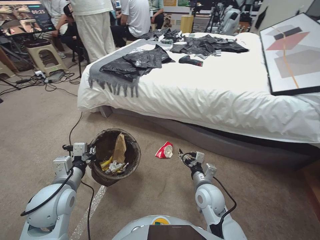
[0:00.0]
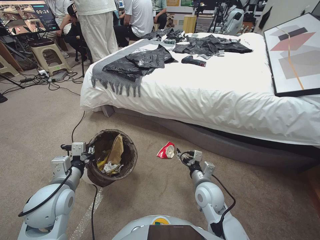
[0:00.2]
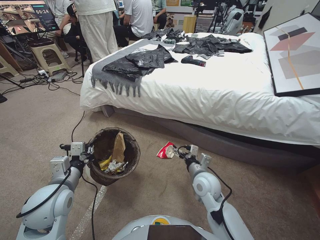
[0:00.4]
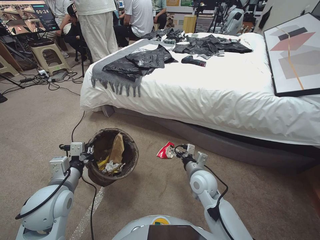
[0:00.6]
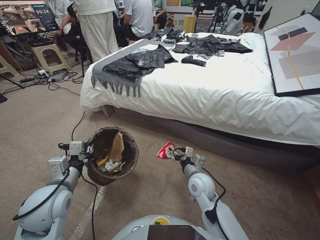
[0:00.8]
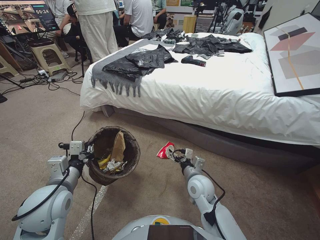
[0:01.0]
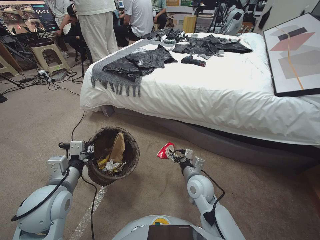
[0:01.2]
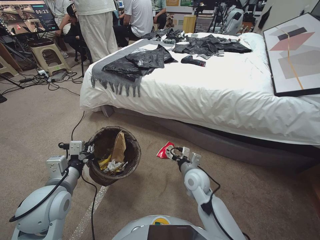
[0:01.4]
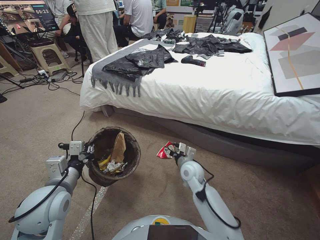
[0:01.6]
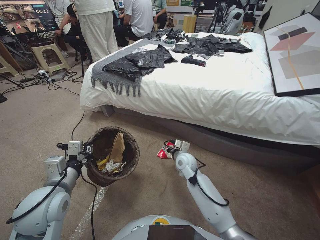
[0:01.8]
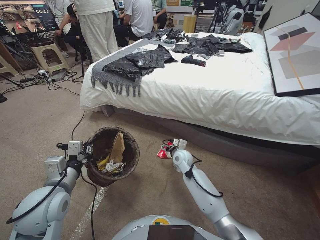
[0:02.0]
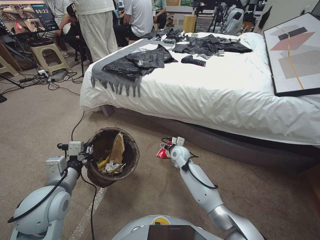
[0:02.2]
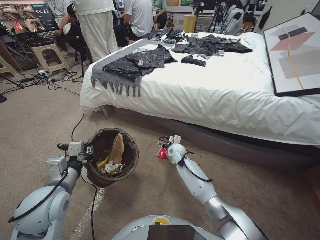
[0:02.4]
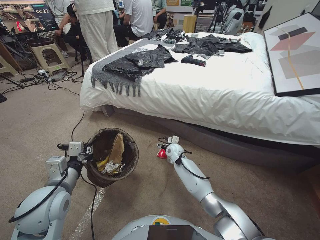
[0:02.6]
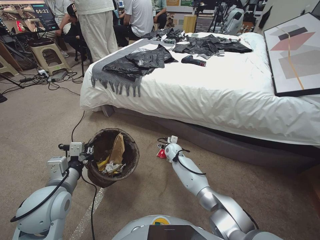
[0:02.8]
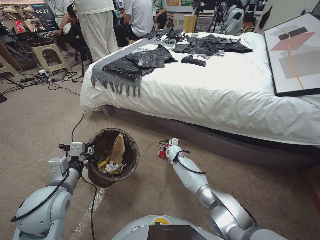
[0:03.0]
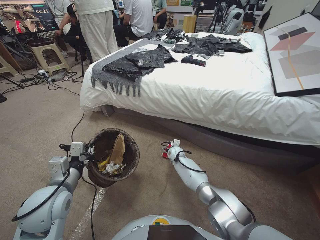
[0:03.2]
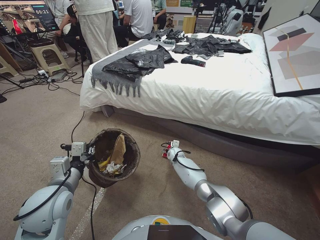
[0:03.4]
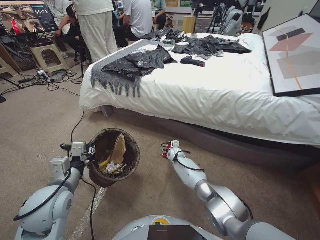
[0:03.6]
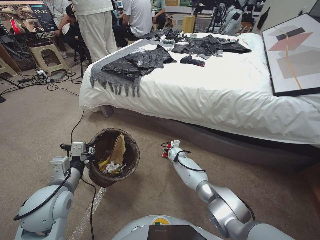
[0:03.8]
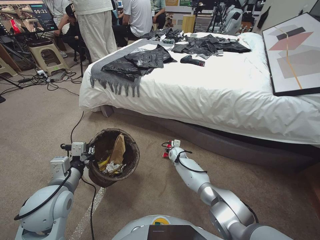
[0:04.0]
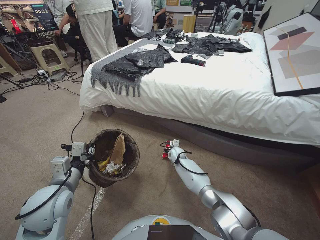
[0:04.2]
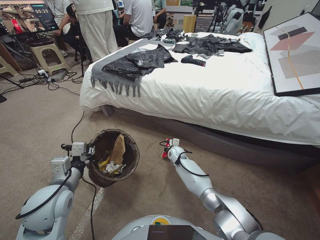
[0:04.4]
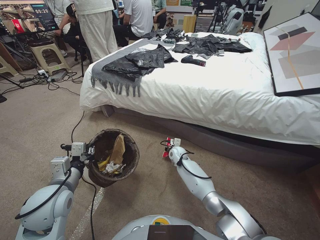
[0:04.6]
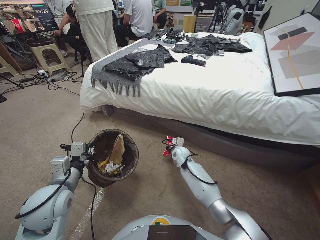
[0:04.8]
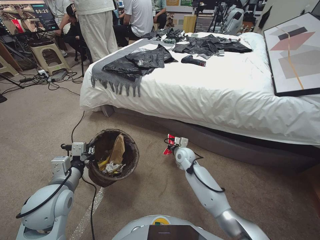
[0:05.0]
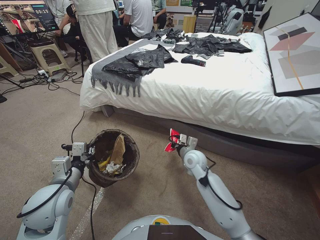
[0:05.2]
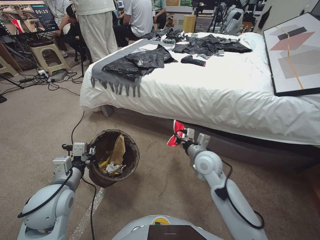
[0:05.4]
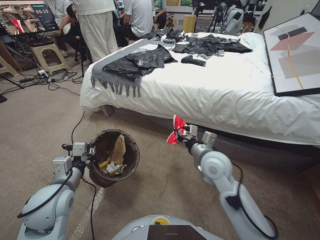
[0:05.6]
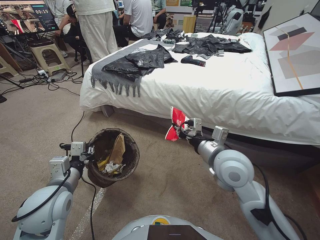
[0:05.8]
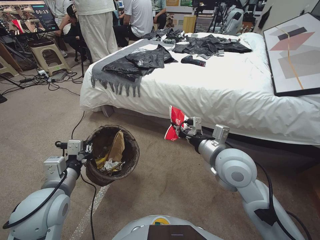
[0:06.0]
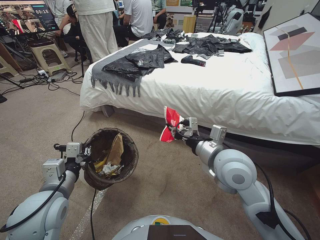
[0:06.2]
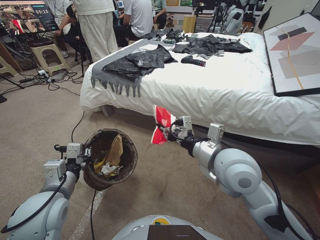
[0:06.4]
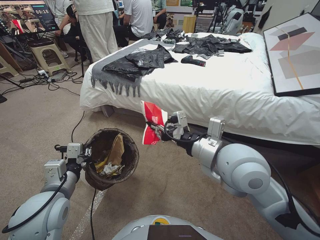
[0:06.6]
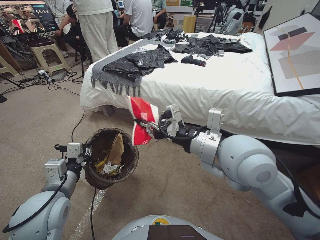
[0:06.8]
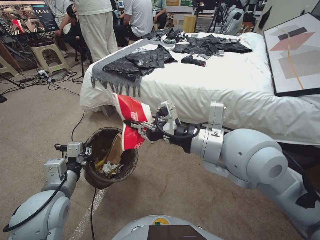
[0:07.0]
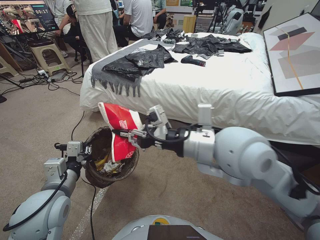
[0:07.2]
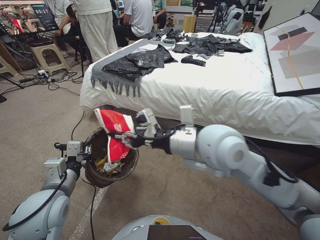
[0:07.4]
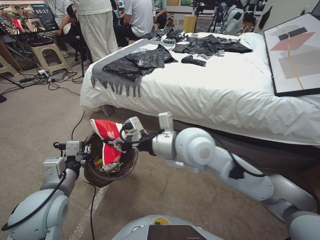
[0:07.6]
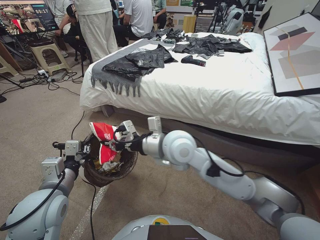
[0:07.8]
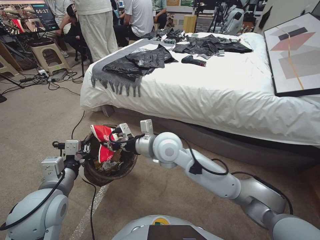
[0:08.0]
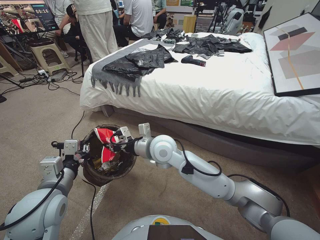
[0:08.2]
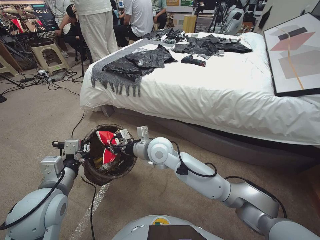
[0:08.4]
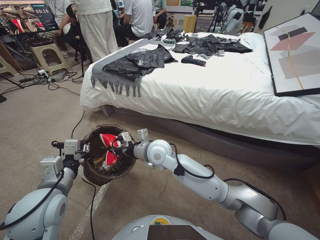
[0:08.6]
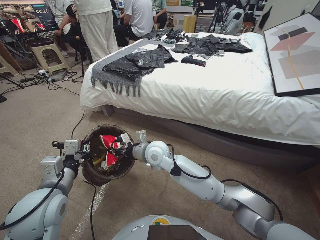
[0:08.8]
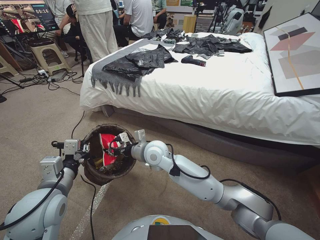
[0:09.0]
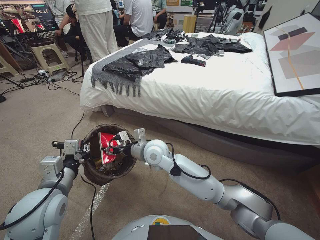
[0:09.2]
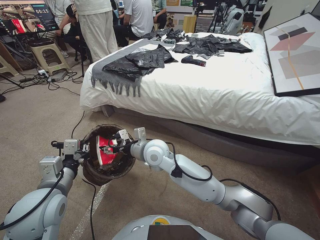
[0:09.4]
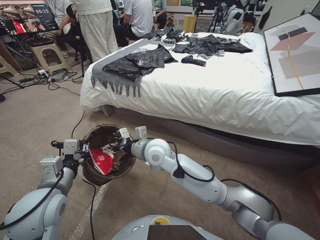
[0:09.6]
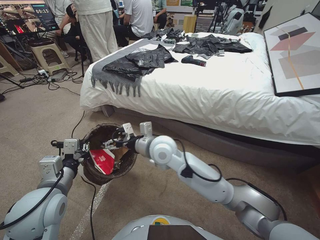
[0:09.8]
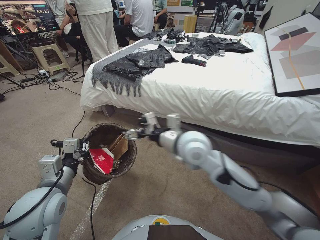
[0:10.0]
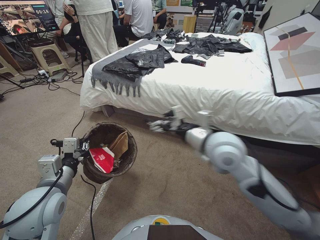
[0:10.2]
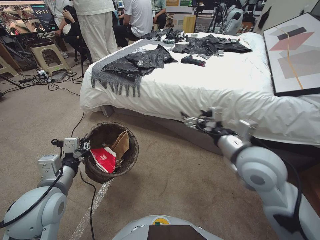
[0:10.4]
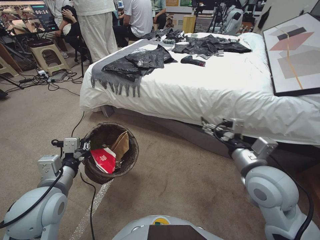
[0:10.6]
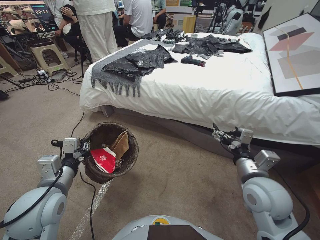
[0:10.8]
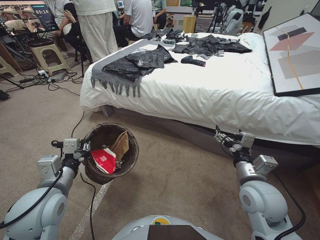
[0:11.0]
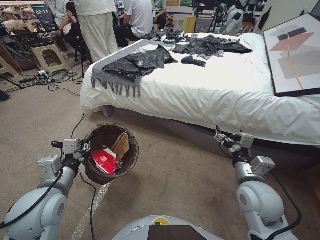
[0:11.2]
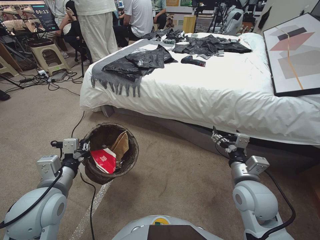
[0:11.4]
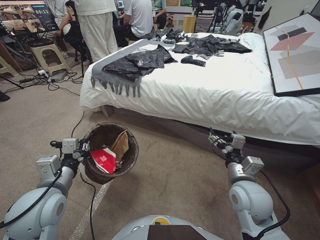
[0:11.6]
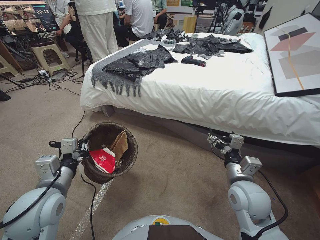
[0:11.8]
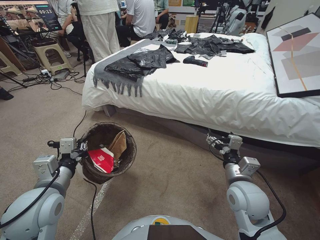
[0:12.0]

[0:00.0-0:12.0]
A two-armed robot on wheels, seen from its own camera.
Task of the whole recording: Pick up the trash bin, then pick up the garbage from the floor and place it into the trash bin.
0:00.0 to 0:01.6: The right gripper goes some 10 cm forward.
0:01.6 to 0:03.0: The right gripper shifts about 20 cm forward and downward.
0:03.0 to 0:04.4: The right gripper closes its fingers.
0:04.4 to 0:06.0: The right gripper goes roughly 40 cm upward and backward, and closes up.
0:06.0 to 0:07.6: The right gripper moves to the left and upward, about 15 cm.
0:07.6 to 0:09.0: The right gripper moves downward, to the left and forward, roughly 20 cm.
0:09.0 to 0:10.4: The right gripper shifts about 30 cm to the right, upward and backward, and opens.
0:10.4 to 0:12.0: The right gripper heads downward and backward, covering about 15 cm.

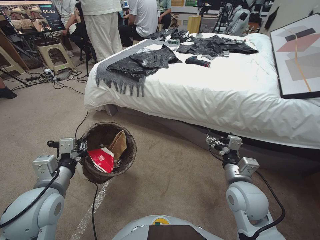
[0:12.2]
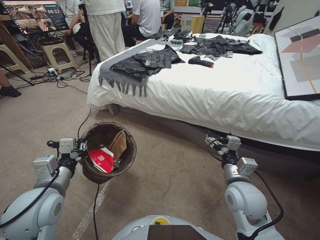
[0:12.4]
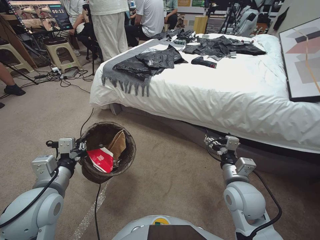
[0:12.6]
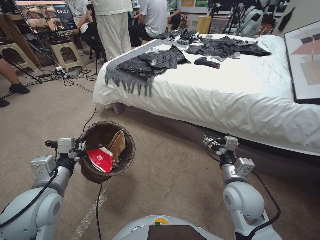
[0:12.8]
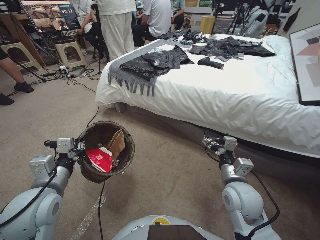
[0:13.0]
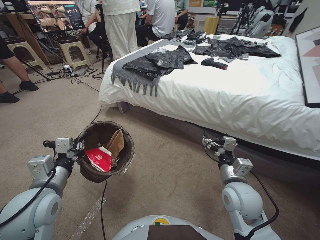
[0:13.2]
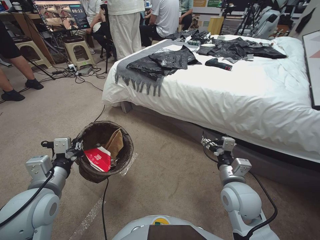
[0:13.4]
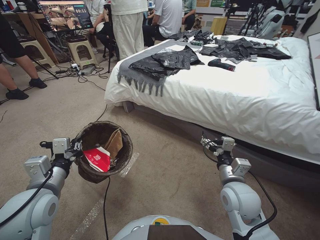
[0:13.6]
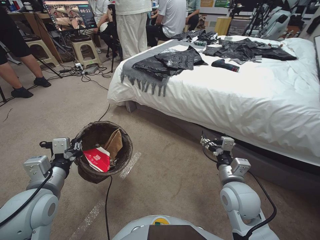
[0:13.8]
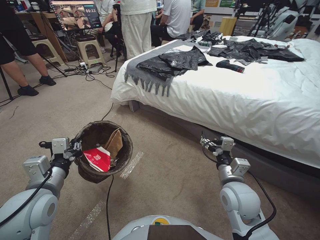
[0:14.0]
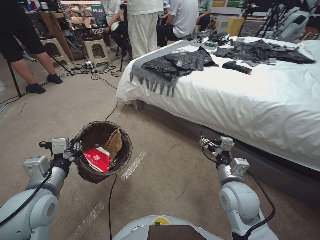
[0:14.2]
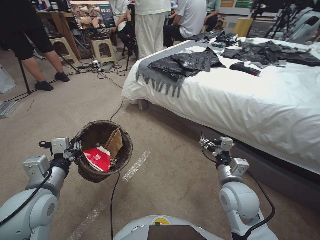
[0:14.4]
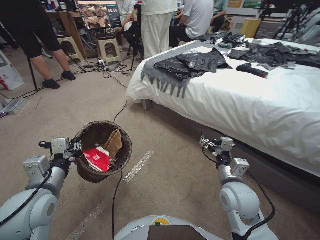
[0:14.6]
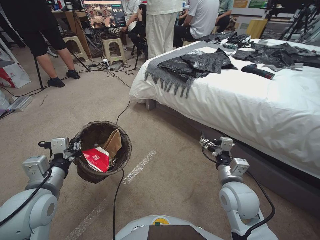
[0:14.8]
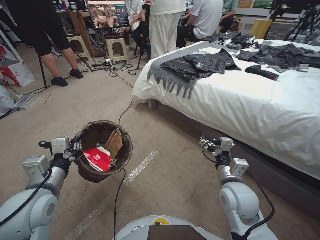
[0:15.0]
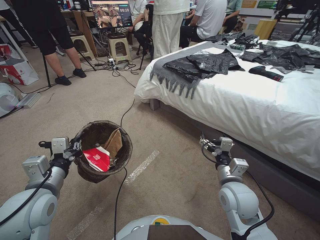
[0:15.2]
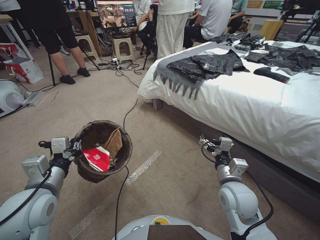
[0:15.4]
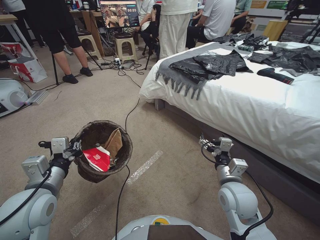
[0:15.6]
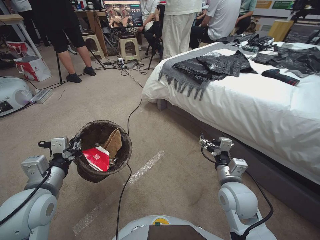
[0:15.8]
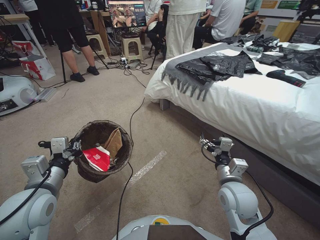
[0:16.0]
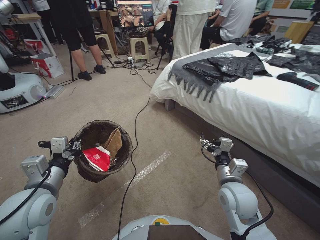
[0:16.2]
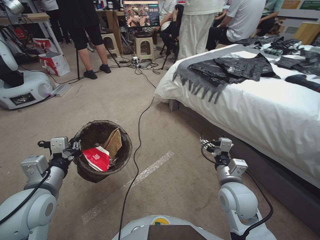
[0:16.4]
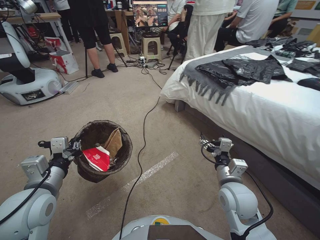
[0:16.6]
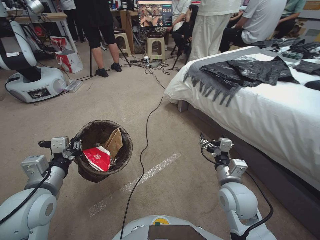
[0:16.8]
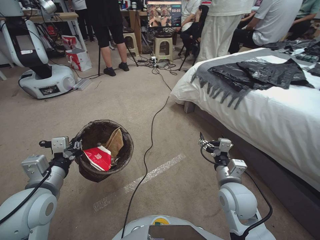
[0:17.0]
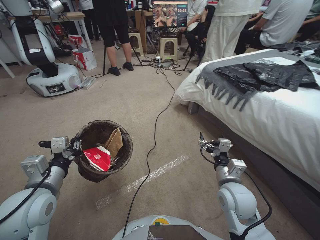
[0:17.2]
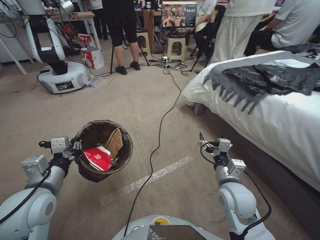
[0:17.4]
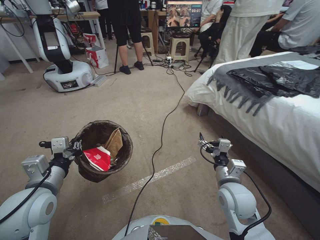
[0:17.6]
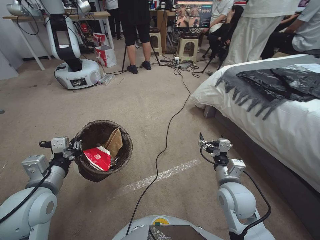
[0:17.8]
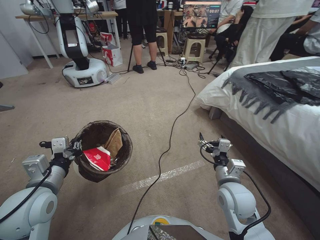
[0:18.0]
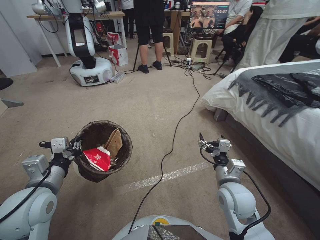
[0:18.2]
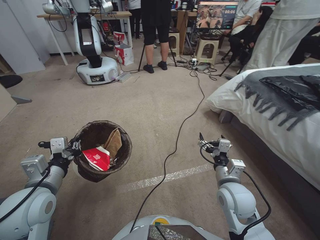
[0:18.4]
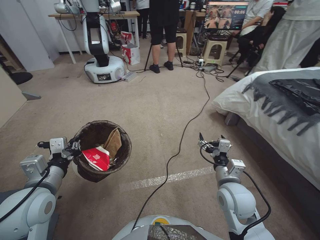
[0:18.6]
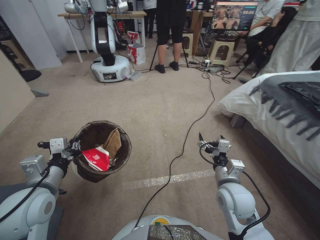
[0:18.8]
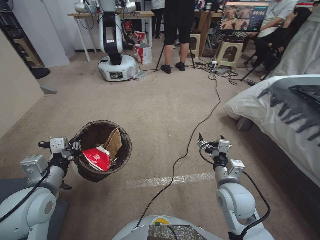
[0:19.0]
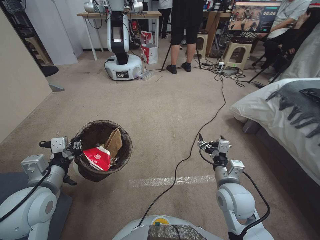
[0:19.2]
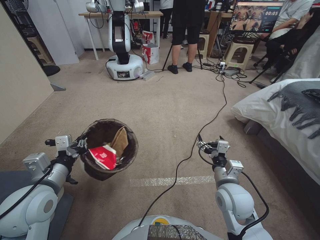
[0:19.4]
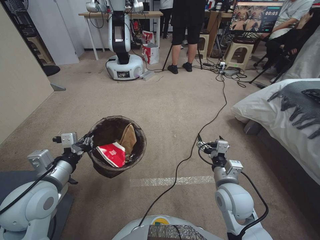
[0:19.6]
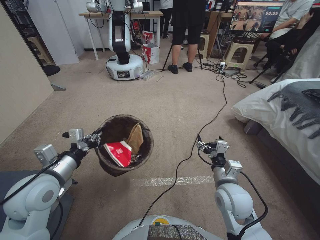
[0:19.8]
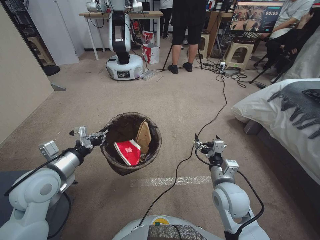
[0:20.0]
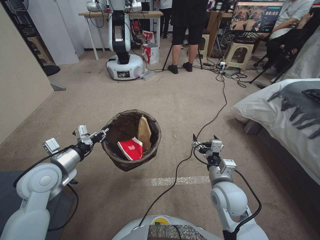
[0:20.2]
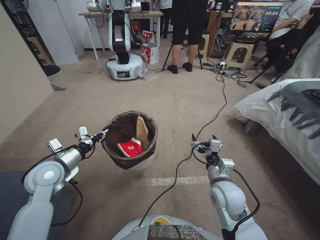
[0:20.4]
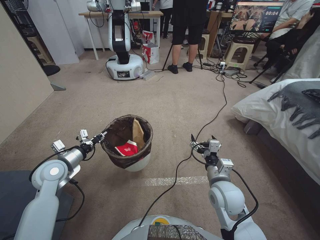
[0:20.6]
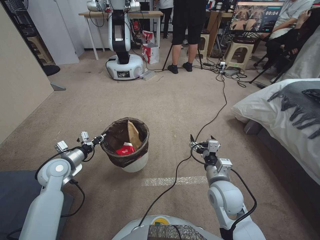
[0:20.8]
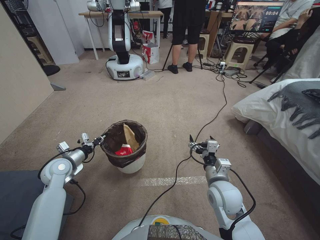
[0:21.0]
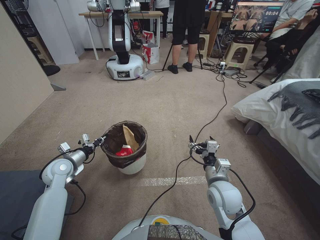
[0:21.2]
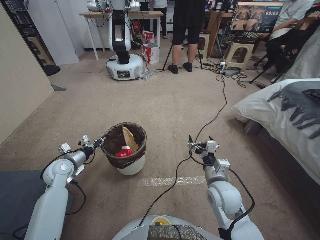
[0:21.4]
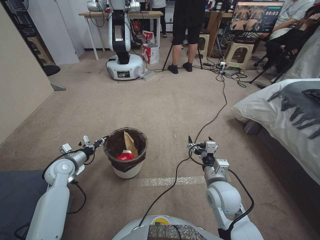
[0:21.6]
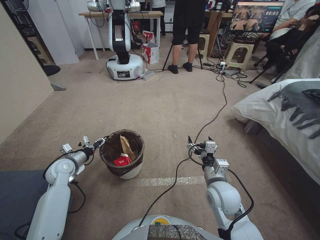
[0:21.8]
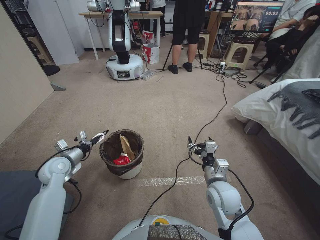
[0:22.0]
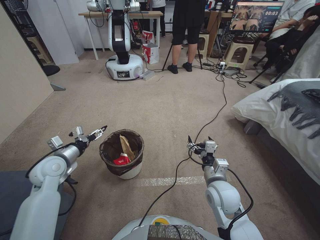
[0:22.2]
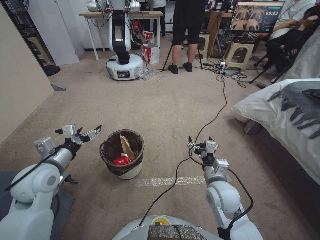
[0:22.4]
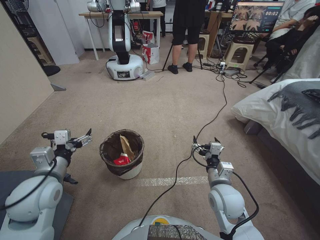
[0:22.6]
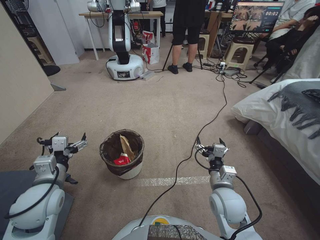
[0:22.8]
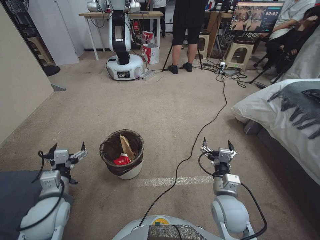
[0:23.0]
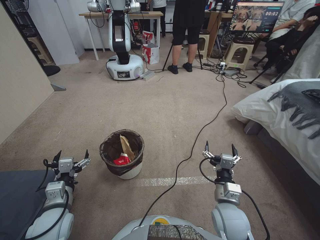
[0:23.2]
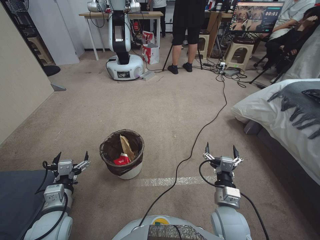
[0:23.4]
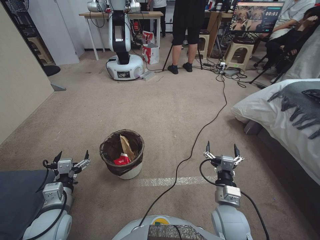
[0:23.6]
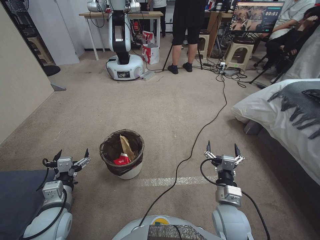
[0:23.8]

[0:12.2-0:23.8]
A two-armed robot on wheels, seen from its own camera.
Task of the whole recording: Pick up the trash bin, then pick up the garbage from the floor and place it into the trash bin.
0:19.4 to 0:21.0: The left gripper is displaced forward, downward and to the left by approximately 20 cm.
0:21.0 to 0:22.4: The left gripper is displaced upward and backward by approximately 10 cm, and opens up.
0:22.4 to 0:23.8: The right gripper goes roughly 5 cm backward. The left gripper heads backward and downward, covering about 15 cm.
